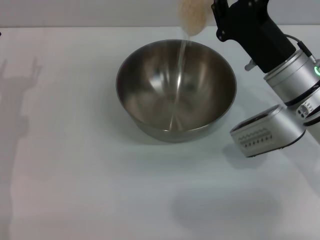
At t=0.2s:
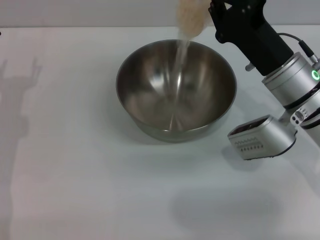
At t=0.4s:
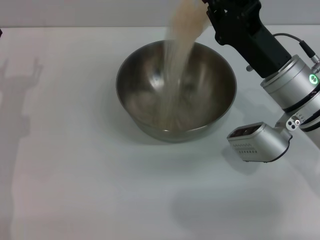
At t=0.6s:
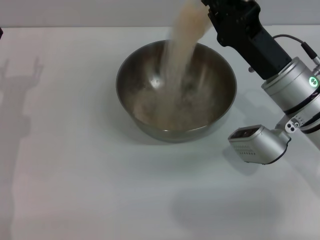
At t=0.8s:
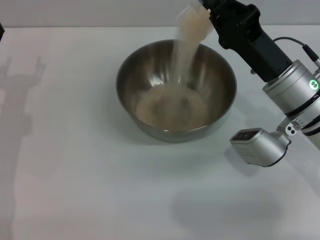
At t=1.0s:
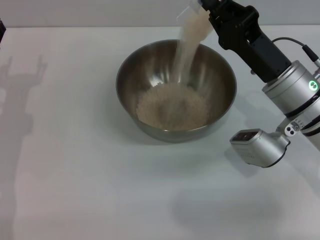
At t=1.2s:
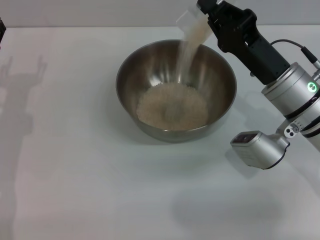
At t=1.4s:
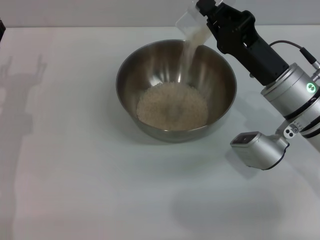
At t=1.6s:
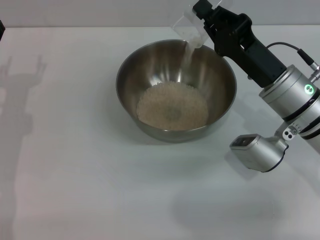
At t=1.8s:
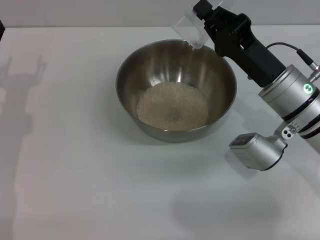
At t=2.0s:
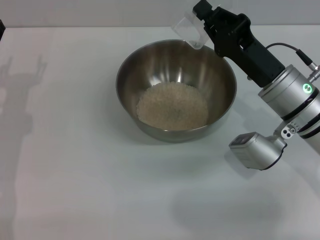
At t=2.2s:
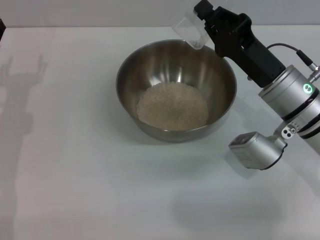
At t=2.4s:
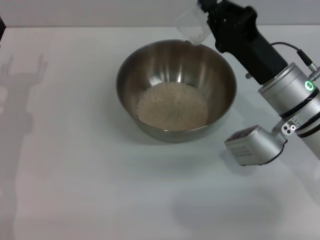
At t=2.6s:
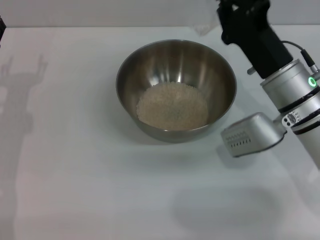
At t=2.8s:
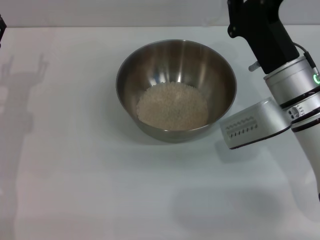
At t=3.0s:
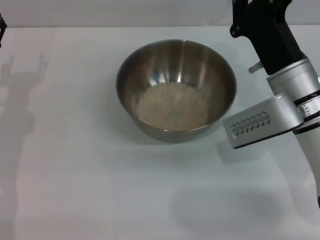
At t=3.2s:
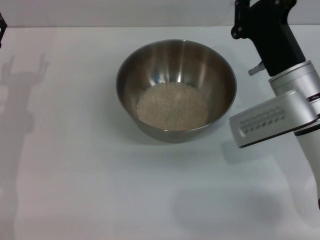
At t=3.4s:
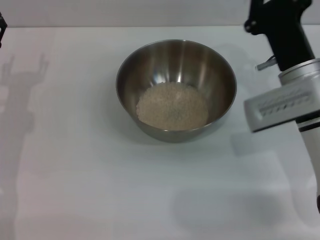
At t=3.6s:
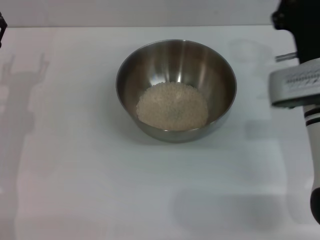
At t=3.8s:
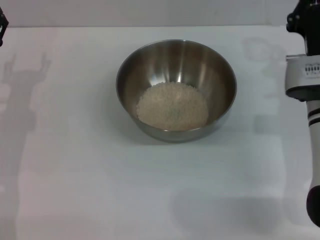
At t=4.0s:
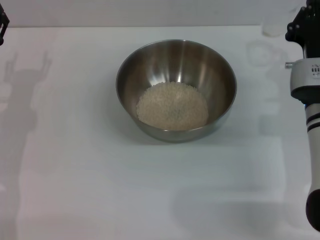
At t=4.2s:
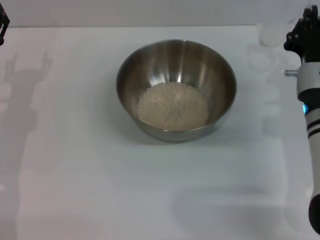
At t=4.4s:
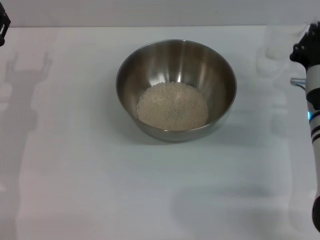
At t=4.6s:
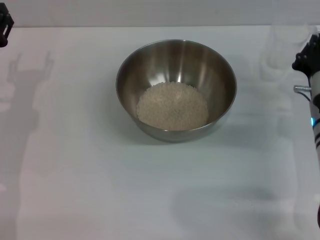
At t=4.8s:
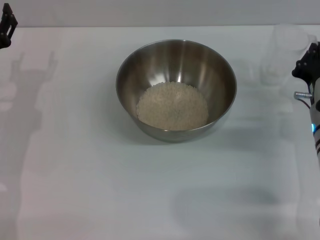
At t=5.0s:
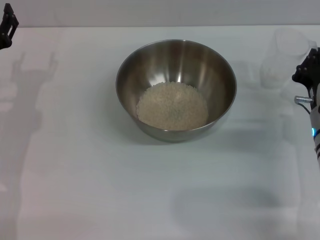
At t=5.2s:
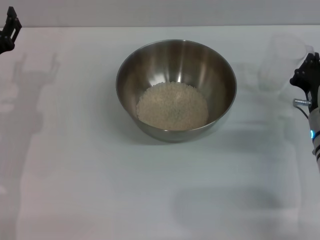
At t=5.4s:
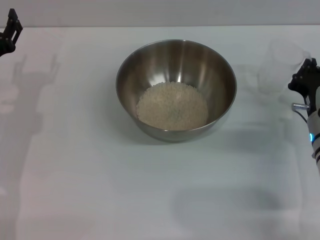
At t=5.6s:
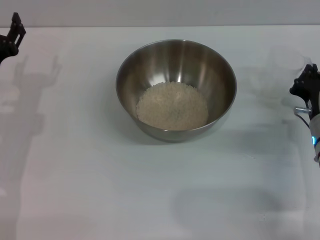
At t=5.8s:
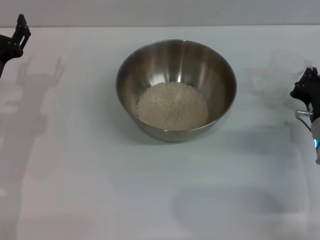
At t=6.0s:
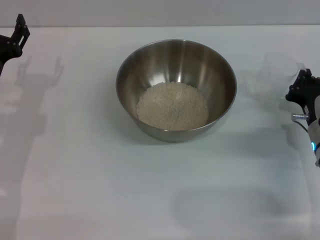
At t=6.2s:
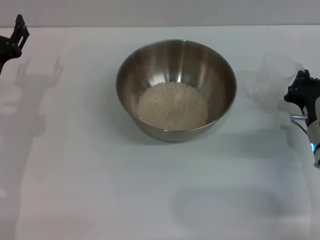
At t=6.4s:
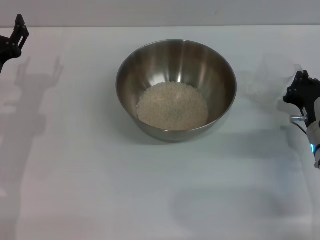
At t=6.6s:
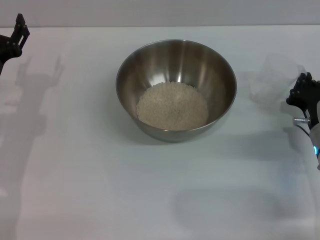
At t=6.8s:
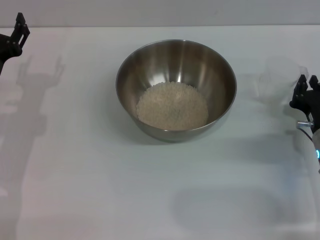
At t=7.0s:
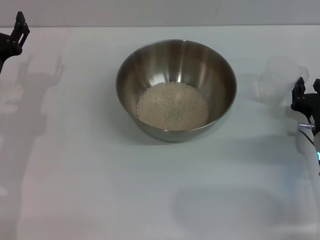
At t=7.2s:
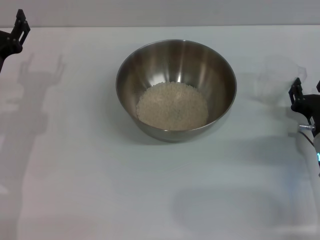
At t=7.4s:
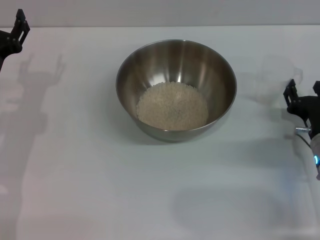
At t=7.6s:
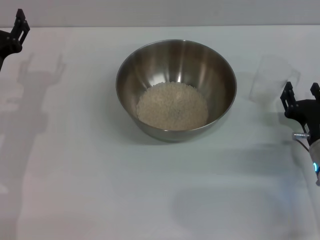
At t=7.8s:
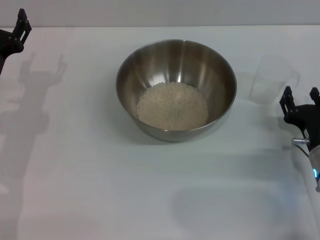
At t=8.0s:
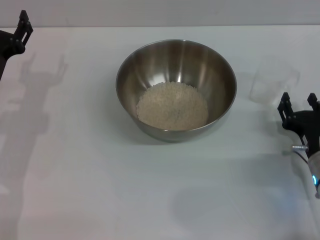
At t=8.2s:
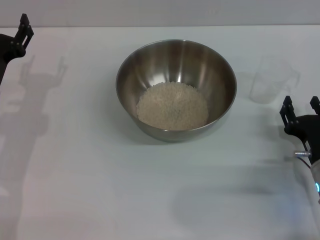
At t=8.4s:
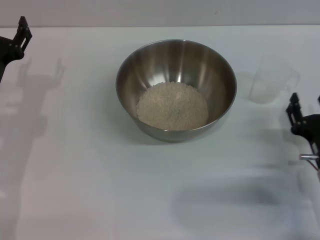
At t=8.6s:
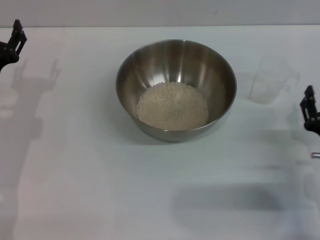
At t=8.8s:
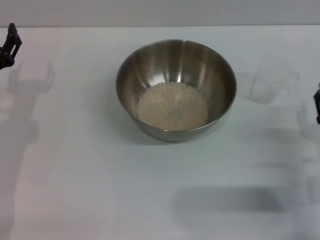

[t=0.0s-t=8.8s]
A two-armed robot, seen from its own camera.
Task of the whole recording: Place the bowl in the middle of the table with one hand and pour the rice from the grain cup into it with the other hand.
Step, t=0.0s to t=2.0s: Pour the rice from the cup into the bowl with the right gripper.
Step, t=2.2s to t=7.8s: Place the cup on the table with the right gripper.
t=3.0s to t=4.4s: The right gripper ends up about 5 cm from where it was.
t=4.4s to t=5.8s: The right gripper shifts by approximately 5 cm.
t=5.8s to t=7.4s: The right gripper opens its fingers.
t=7.4s to t=8.8s: The right gripper goes some 5 cm backward.
